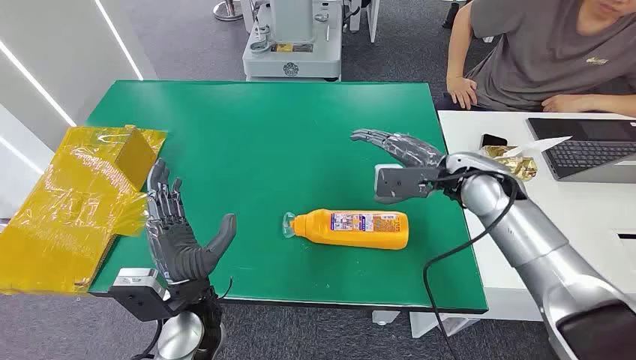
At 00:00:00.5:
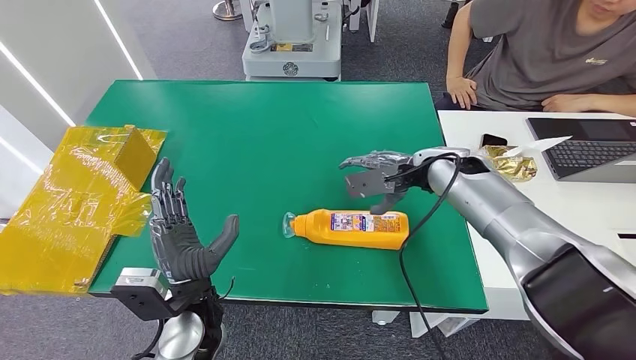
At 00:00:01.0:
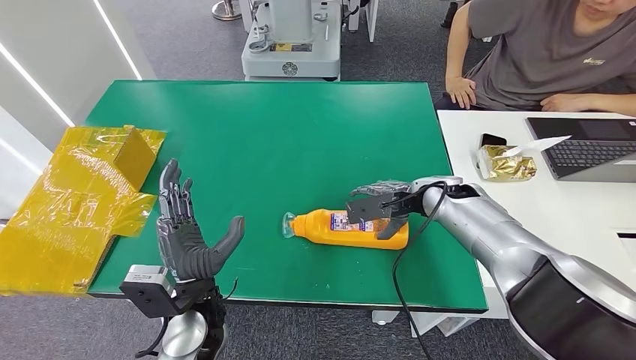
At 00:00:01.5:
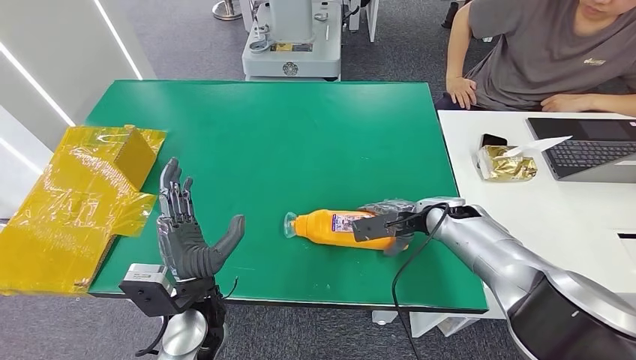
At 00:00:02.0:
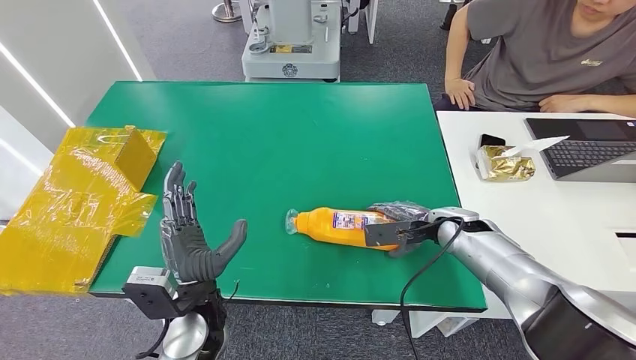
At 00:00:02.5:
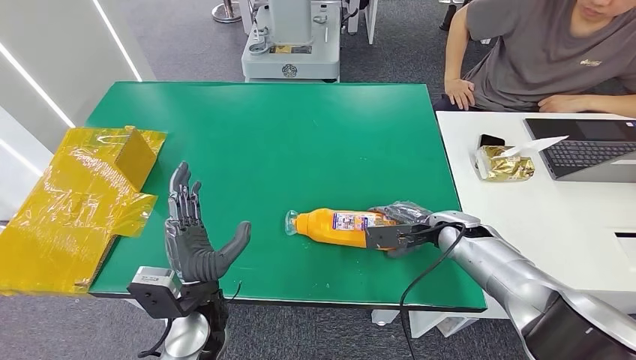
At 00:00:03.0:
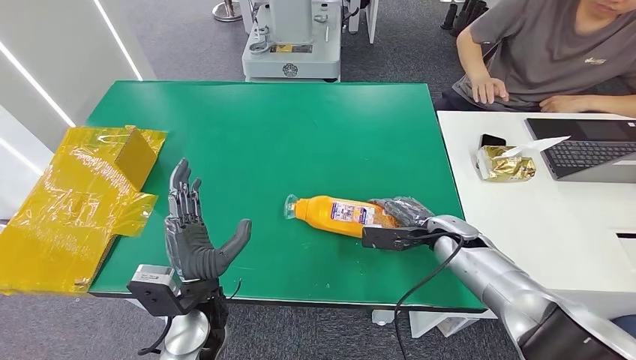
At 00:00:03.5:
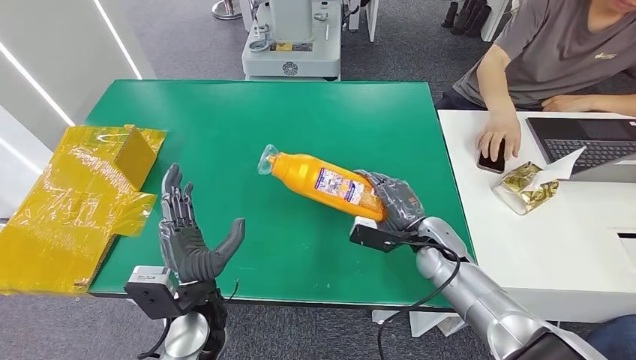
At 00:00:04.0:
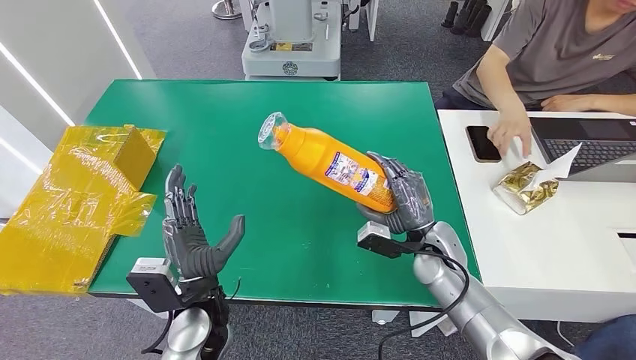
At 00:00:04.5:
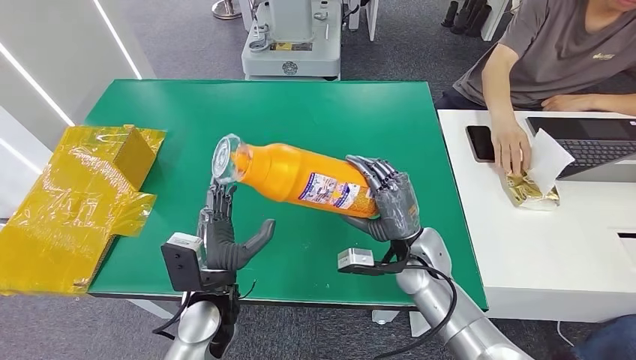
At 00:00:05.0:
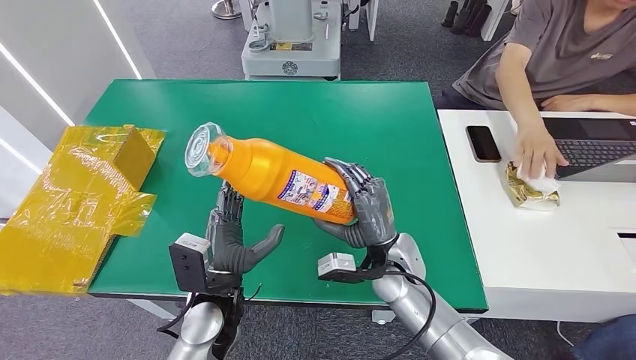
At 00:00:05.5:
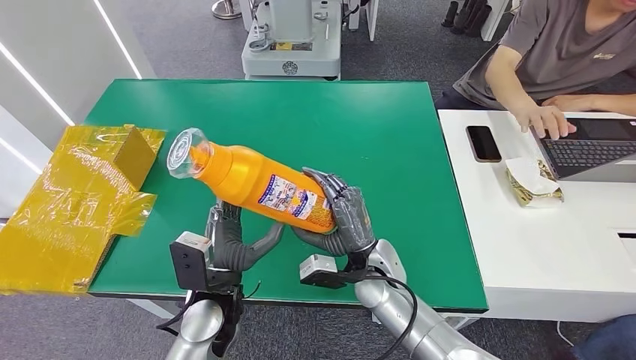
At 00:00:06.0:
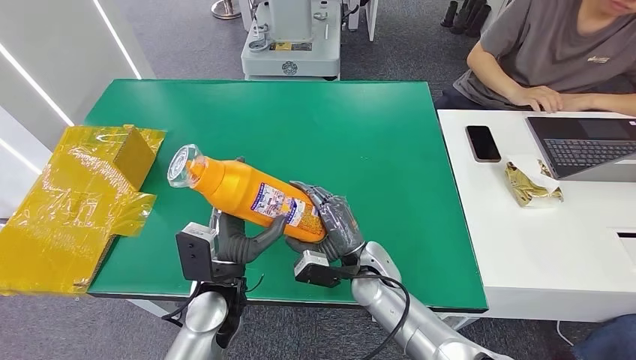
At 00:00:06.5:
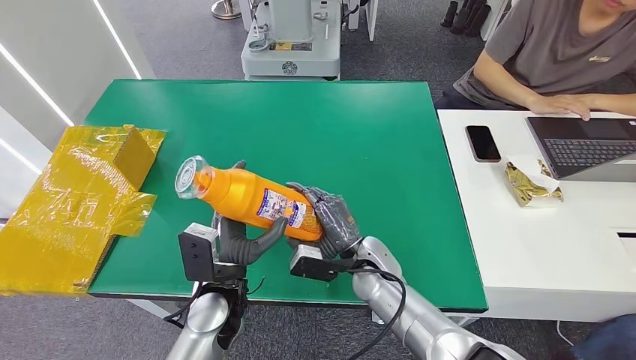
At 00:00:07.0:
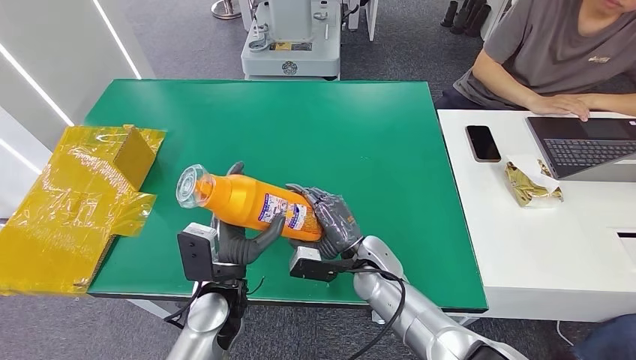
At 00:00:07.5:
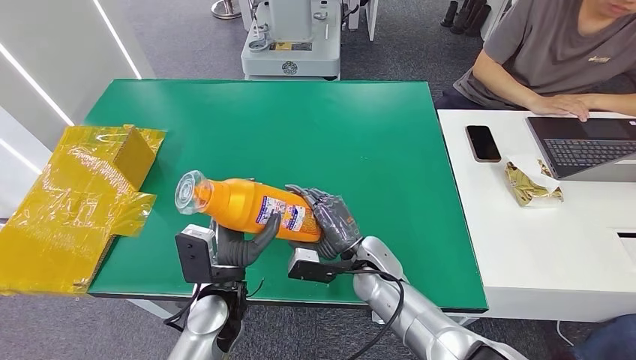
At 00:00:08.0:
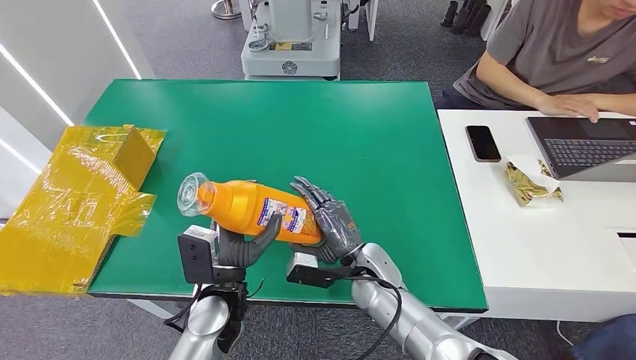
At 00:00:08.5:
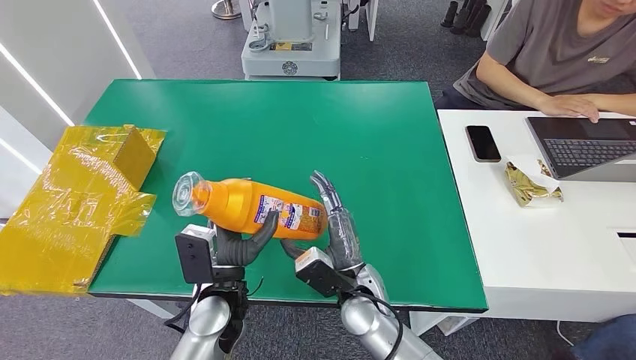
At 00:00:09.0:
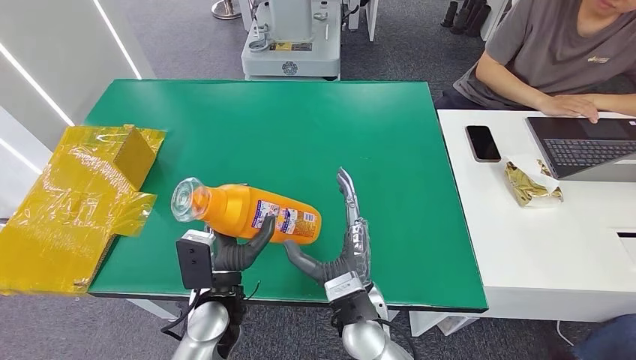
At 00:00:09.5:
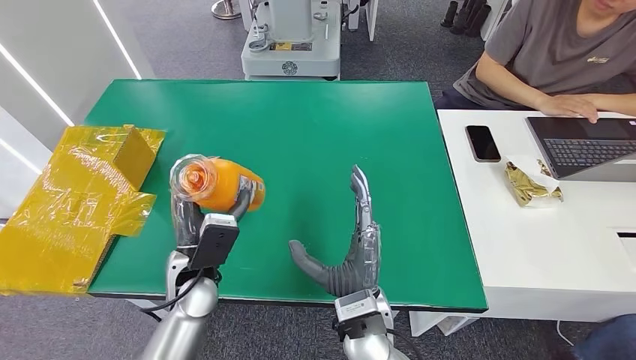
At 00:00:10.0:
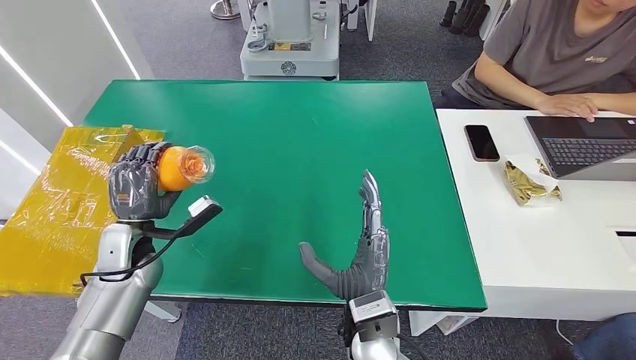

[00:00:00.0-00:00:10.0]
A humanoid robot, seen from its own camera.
Step, 00:00:00.0 to 00:00:03.5: Pick up the bottle from the table.
00:00:06.0 to 00:00:08.0: The hands make only small movements.
00:00:08.0 to 00:00:10.0: The left hand shifts roughly 20 cm to the left and forward. The right hand is displaced backward and upward by some 10 cm.

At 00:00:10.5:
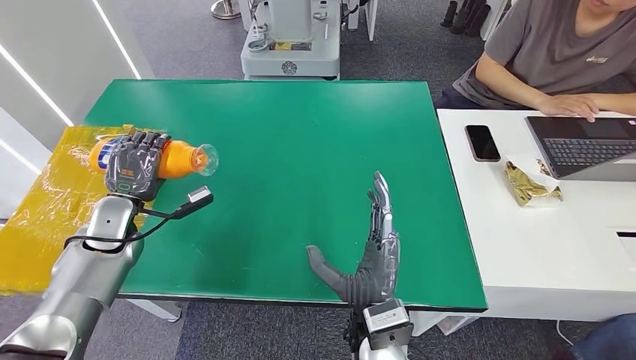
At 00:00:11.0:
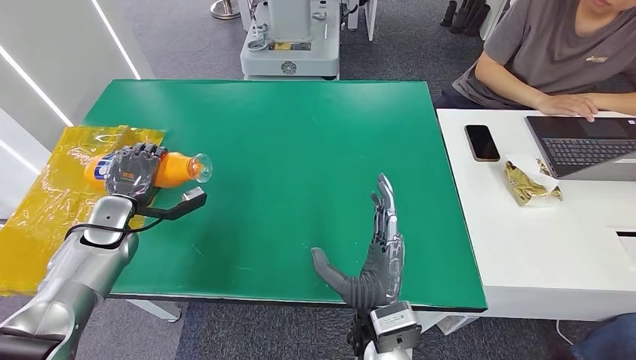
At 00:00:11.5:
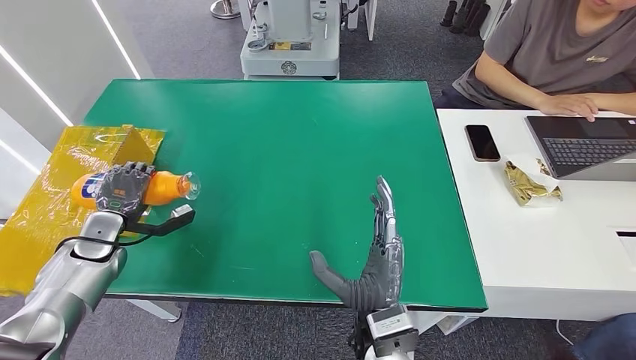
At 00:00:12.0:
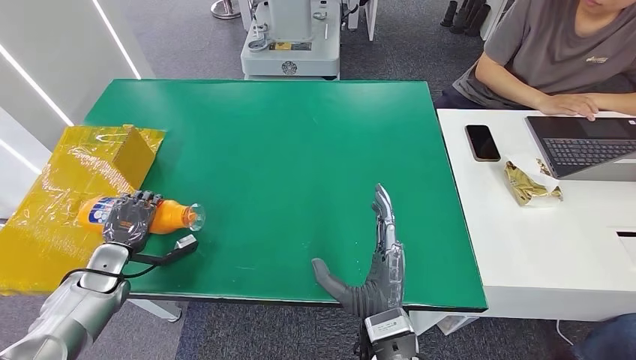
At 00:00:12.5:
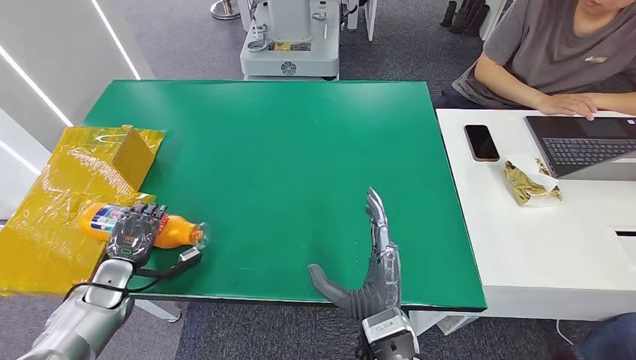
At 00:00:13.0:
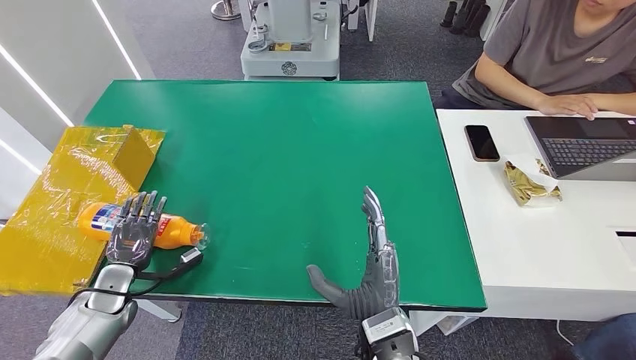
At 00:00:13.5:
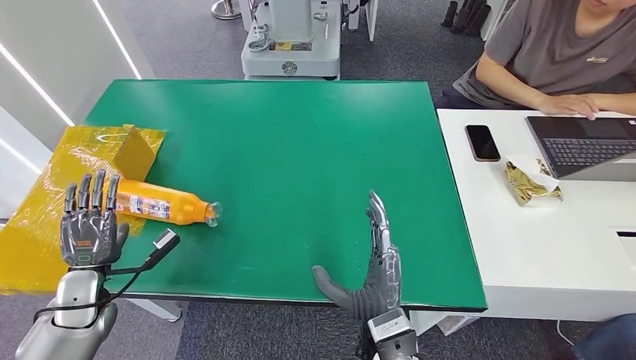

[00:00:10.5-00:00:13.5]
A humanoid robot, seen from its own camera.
Step, 00:00:10.5 to 00:00:13.5: Turn the bottle to the front side.
00:00:10.5 to 00:00:12.0: The left hand travels downward, backward and to the left by some 10 cm.
00:00:12.0 to 00:00:13.5: The left hand shifts by approximately 5 cm.
